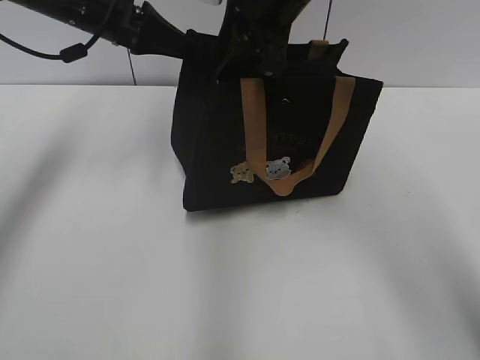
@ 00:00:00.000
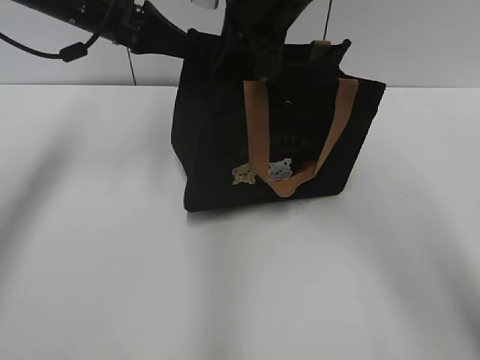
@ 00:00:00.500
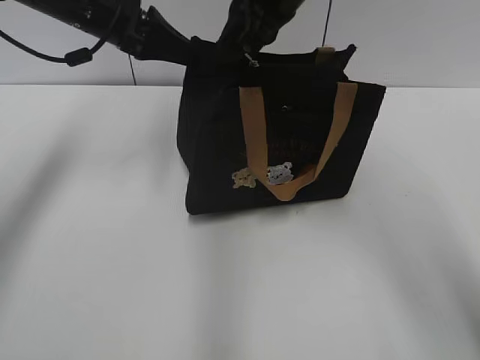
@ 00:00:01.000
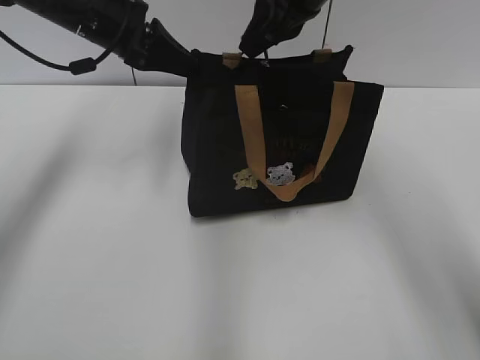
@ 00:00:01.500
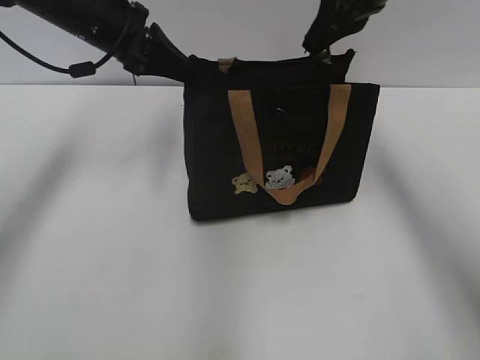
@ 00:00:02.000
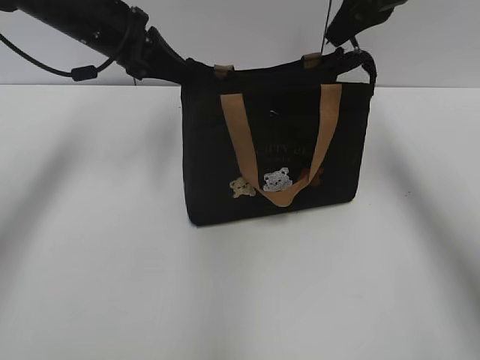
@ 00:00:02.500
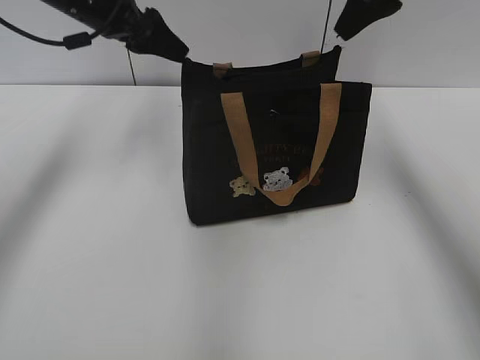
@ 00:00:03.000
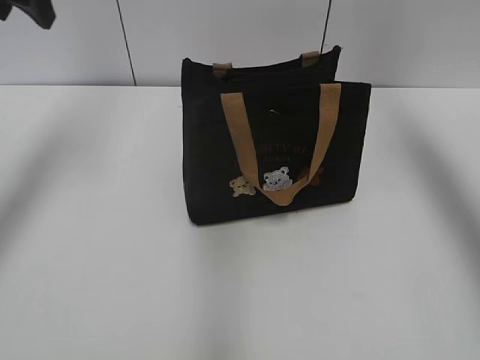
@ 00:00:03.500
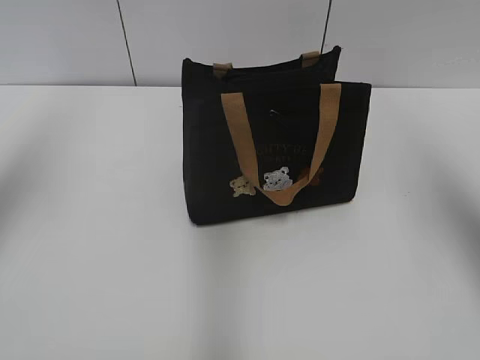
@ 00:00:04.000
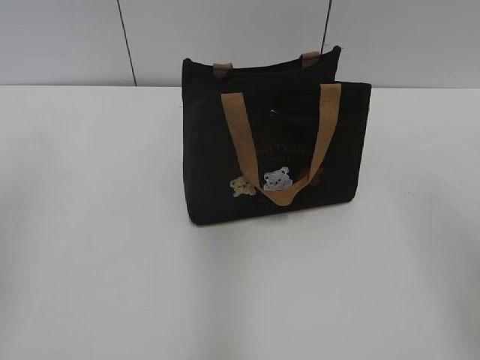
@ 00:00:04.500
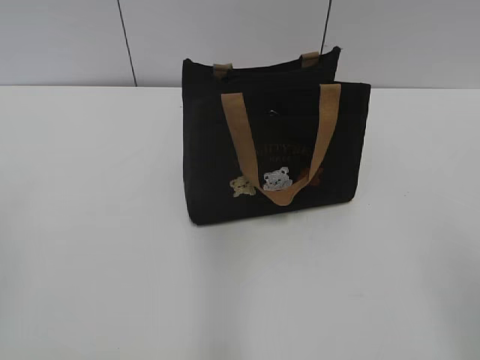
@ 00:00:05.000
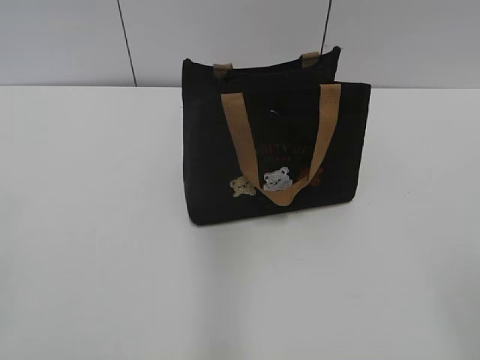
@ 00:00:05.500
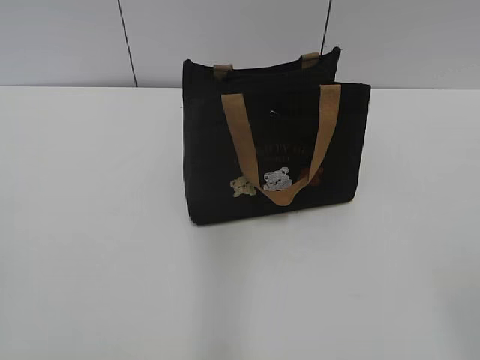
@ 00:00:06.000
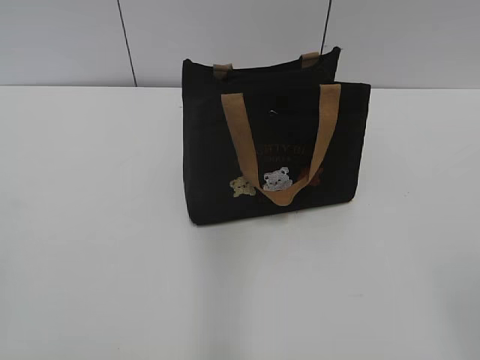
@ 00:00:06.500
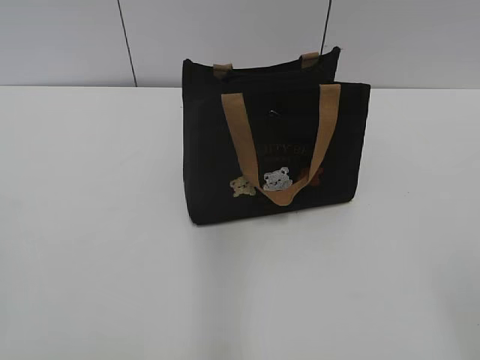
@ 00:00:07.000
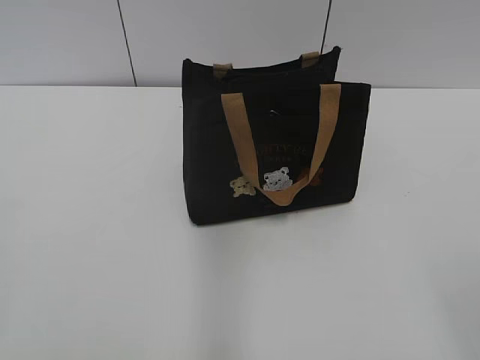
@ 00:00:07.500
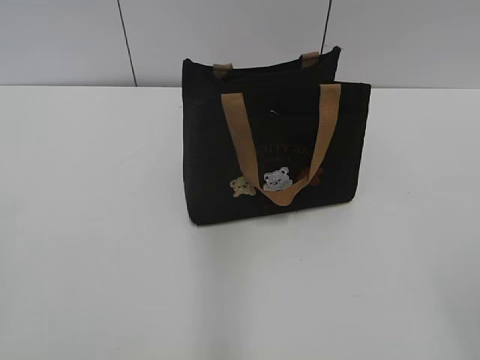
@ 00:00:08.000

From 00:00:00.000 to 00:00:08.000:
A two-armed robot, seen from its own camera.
Step, from 00:00:00.000 to 00:00:02.500: Pull open the zipper with your right hand.
From 00:00:00.000 to 00:00:02.000: The right gripper is displaced to the right by some 10 cm, and closes.
From 00:00:02.000 to 00:00:04.000: The left gripper goes roughly 20 cm upward, to the left and backward, and opens. The right gripper moves to the right, backward and upward, approximately 20 cm, and opens its fingers.
From 00:00:04.000 to 00:00:06.000: The left gripper is displaced backward by approximately 35 cm; the right gripper goes about 35 cm backward and downward.

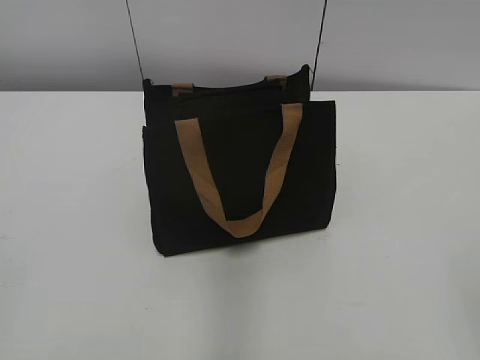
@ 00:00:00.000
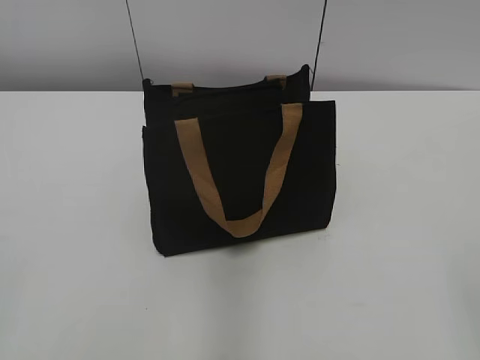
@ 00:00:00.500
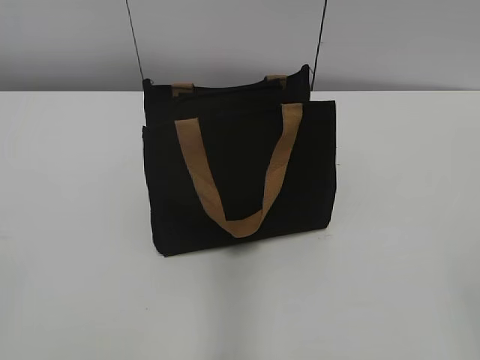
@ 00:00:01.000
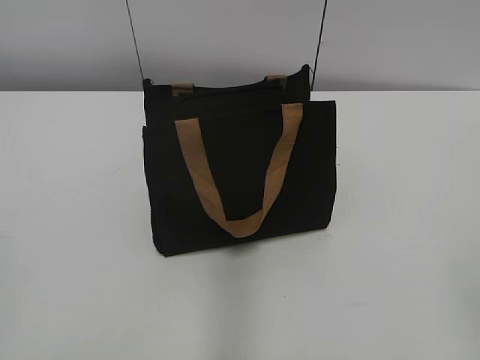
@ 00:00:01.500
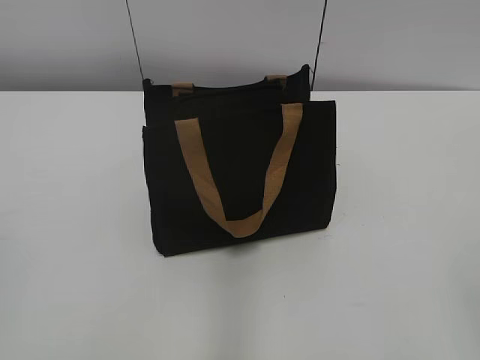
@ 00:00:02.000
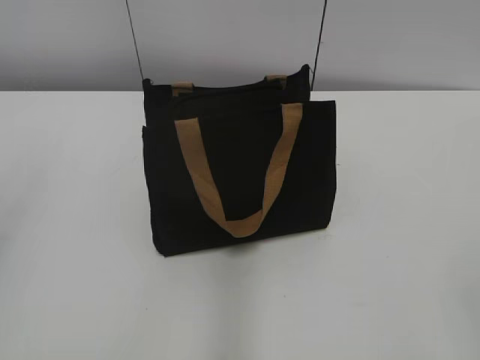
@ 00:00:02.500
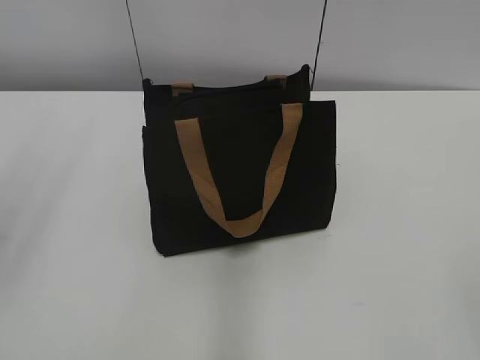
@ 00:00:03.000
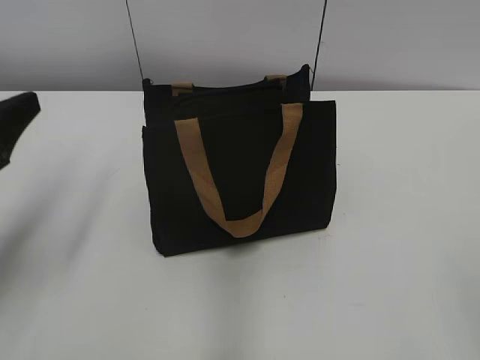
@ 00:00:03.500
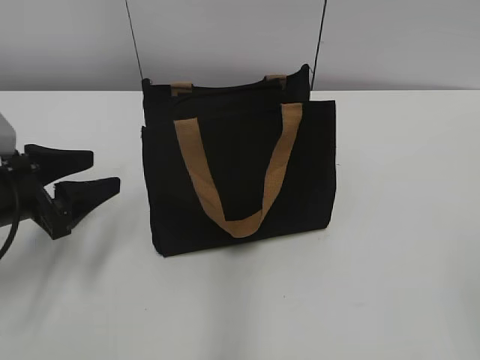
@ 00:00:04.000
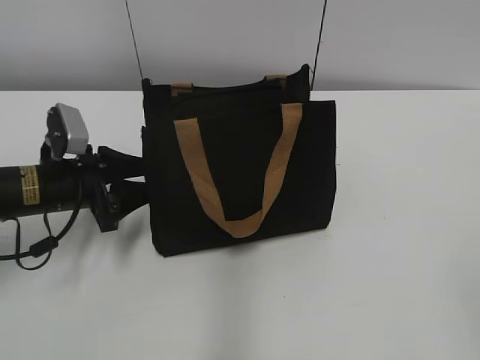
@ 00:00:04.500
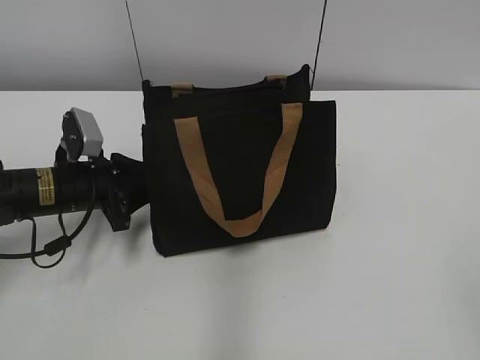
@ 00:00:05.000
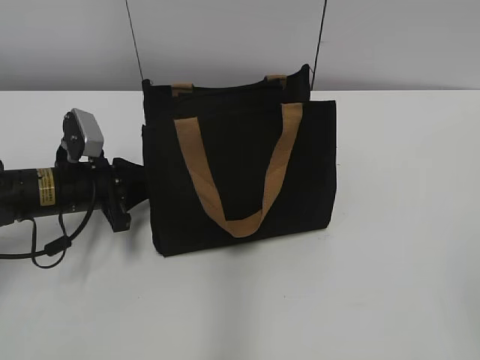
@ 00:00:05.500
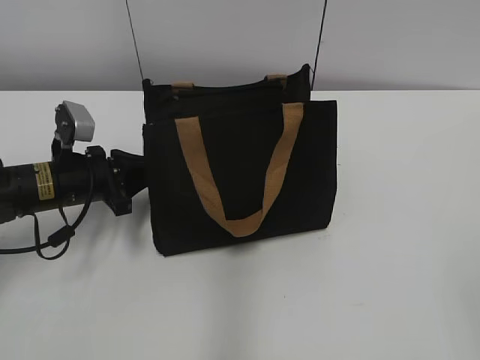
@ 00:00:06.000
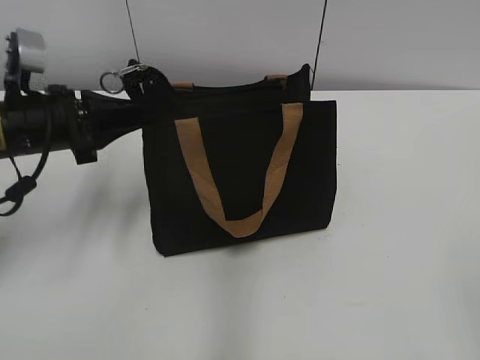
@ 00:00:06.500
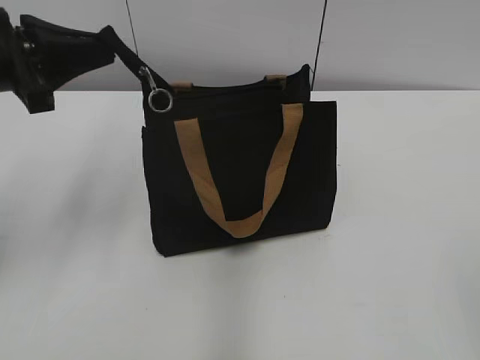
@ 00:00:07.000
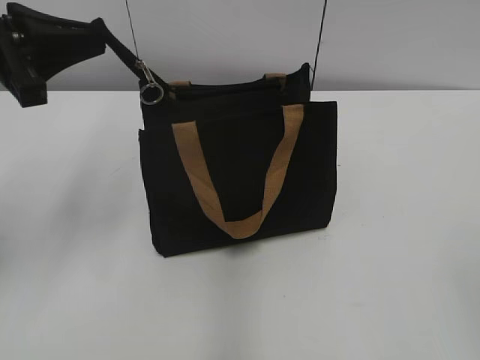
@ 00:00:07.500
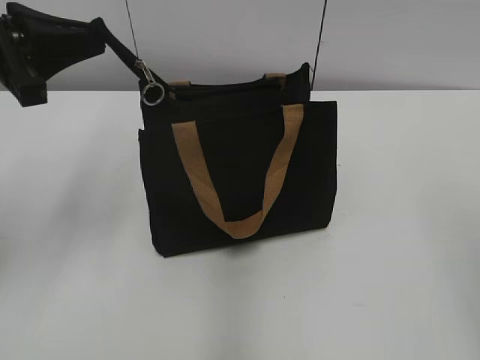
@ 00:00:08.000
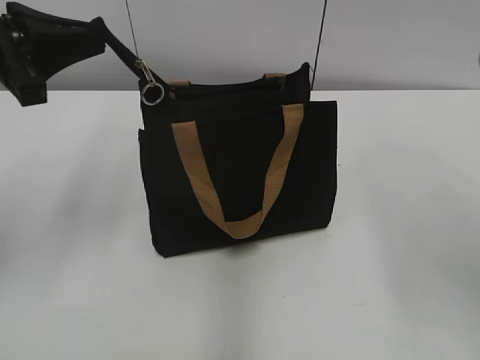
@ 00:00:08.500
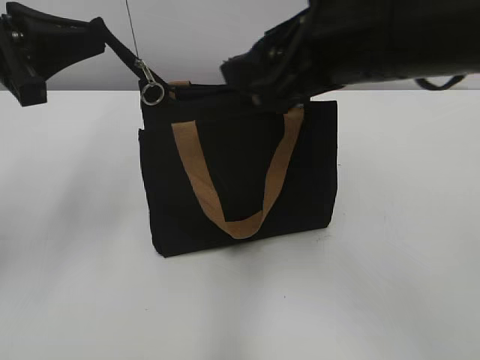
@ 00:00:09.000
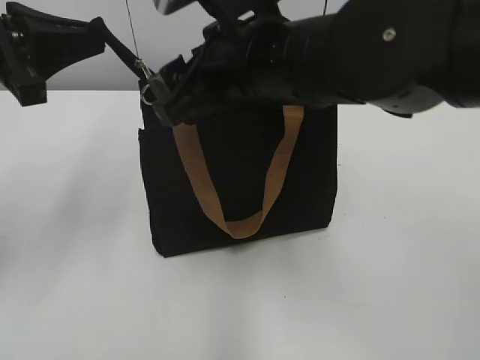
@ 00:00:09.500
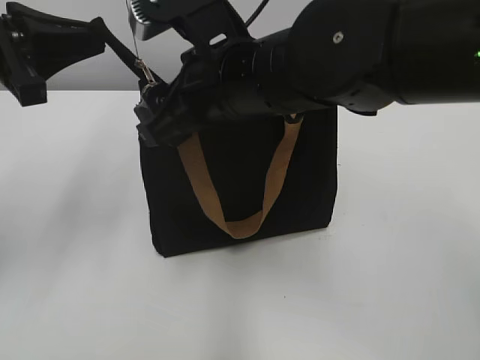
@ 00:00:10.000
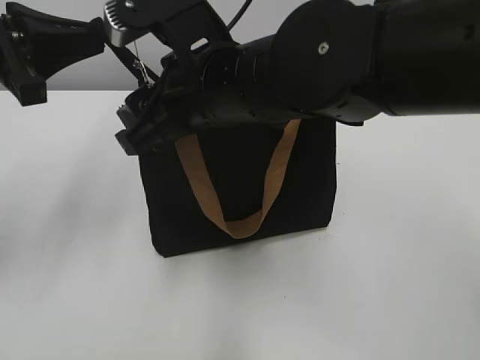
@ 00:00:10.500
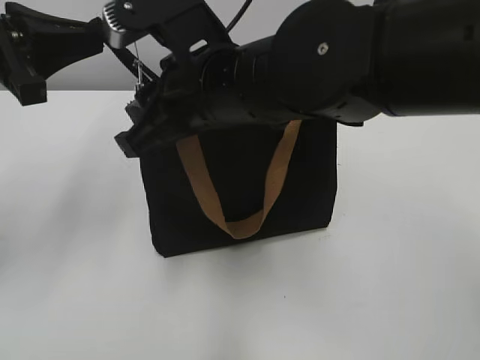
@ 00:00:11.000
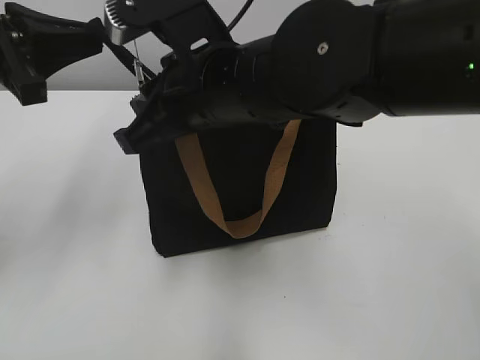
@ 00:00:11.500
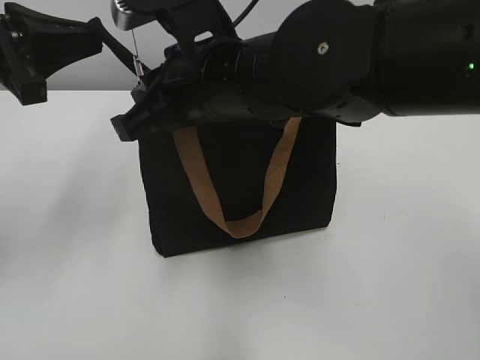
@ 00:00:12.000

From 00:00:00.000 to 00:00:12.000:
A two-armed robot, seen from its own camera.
From 00:00:02.000 to 00:00:04.000: The left gripper travels forward and downward by approximately 30 cm, and opens.
From 00:00:04.000 to 00:00:06.000: The left gripper moves forward, approximately 5 cm, and closes.
From 00:00:06.000 to 00:00:08.000: The left gripper moves upward, roughly 20 cm; the right gripper travels forward and upward by about 10 cm.
From 00:00:08.000 to 00:00:10.000: The right gripper is displaced to the left and forward by about 35 cm.
From 00:00:10.000 to 00:00:12.000: The right gripper closes up.

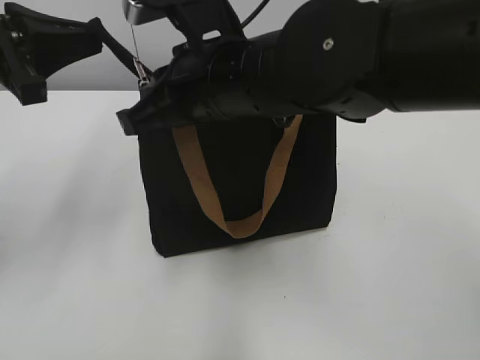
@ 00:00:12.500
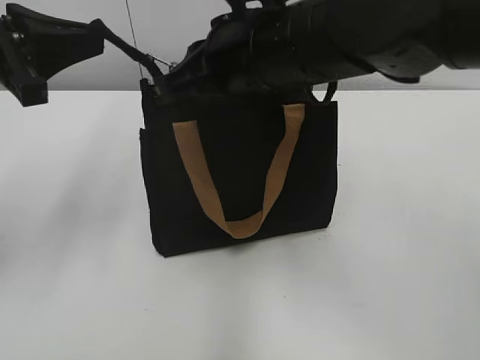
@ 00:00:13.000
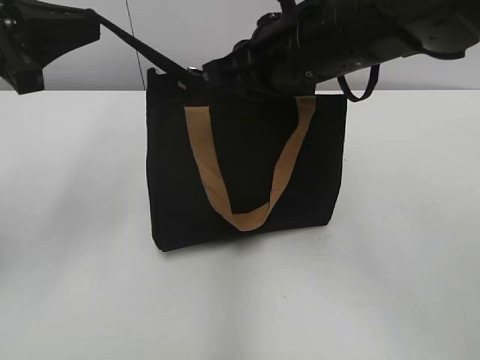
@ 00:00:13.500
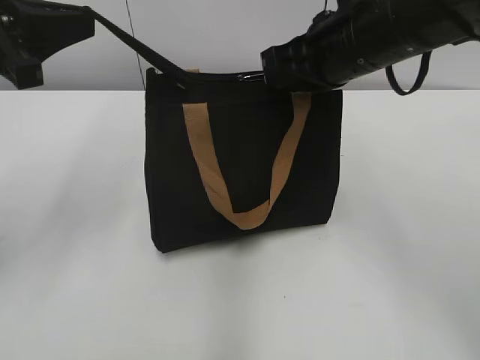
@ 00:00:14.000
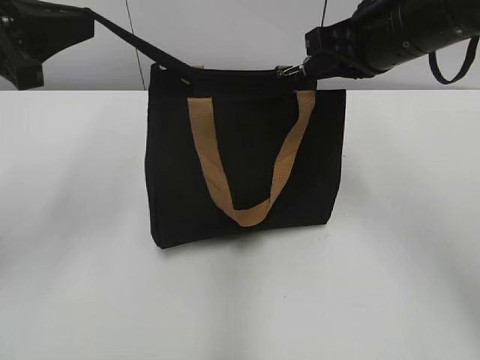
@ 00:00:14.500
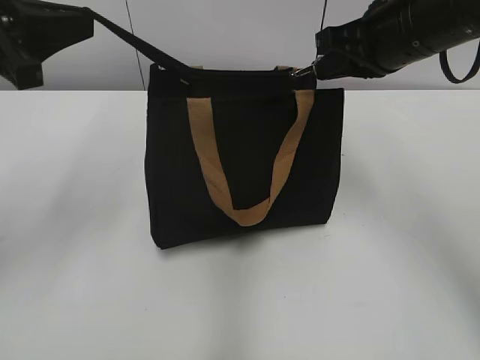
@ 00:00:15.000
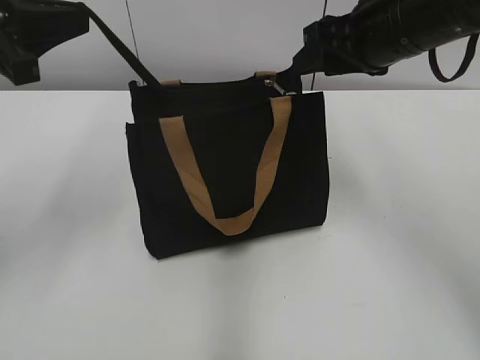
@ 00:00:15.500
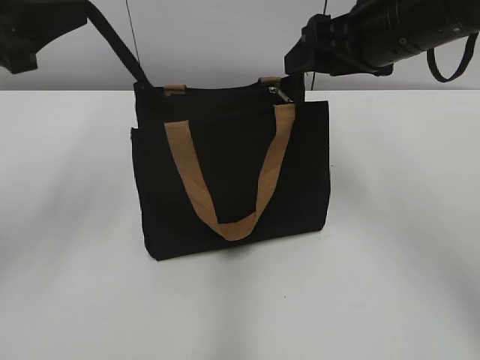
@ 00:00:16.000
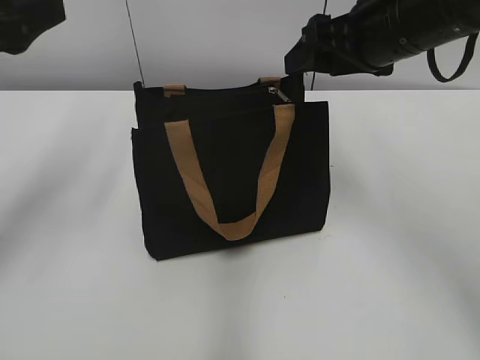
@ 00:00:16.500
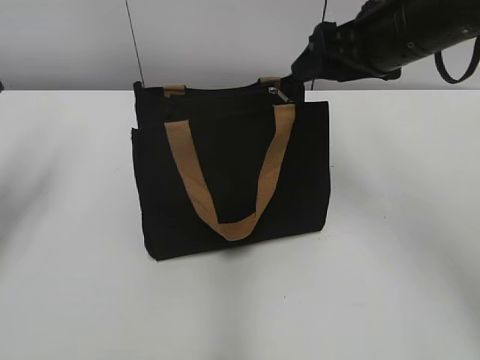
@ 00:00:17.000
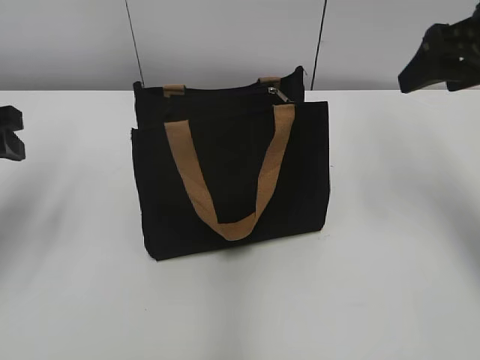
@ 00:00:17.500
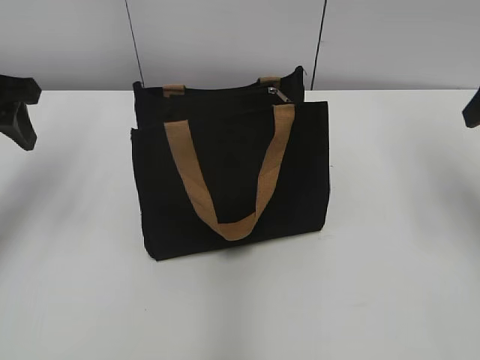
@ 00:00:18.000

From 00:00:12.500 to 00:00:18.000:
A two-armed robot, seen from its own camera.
Step, from 00:00:12.500 to 00:00:15.000: Zip up the bag with your right hand.
Step, from 00:00:15.500 to 00:00:16.000: Grab the zipper with your left hand.
From 00:00:12.500 to 00:00:14.500: The right gripper goes some 15 cm to the right.
From 00:00:14.500 to 00:00:16.000: The right gripper opens.
From 00:00:16.000 to 00:00:18.000: The left gripper shifts by approximately 5 cm, and opens; the right gripper travels to the right by some 15 cm.
